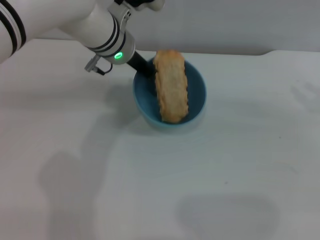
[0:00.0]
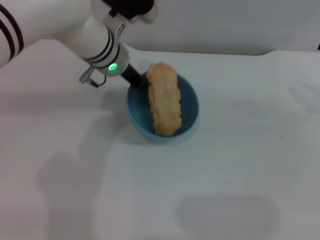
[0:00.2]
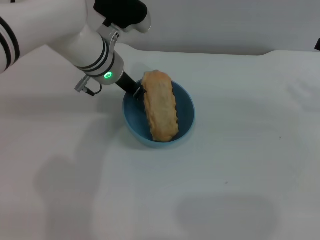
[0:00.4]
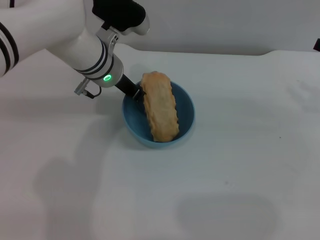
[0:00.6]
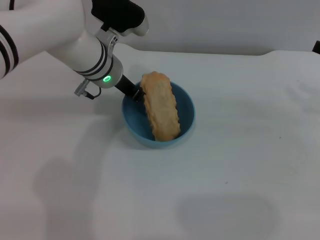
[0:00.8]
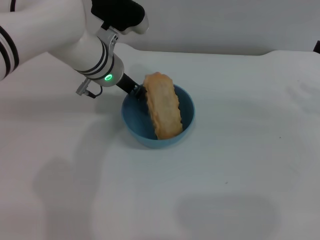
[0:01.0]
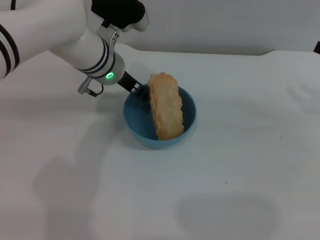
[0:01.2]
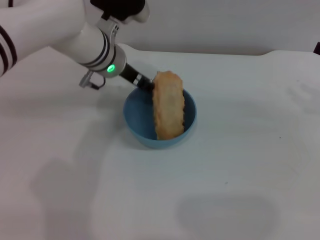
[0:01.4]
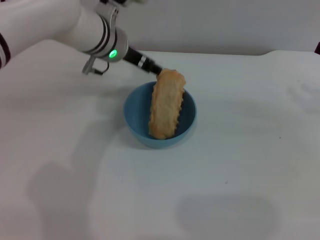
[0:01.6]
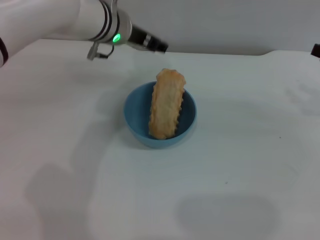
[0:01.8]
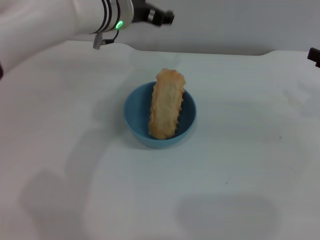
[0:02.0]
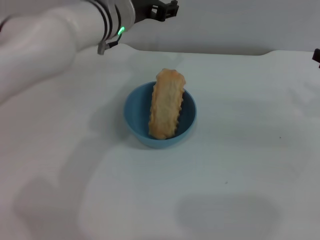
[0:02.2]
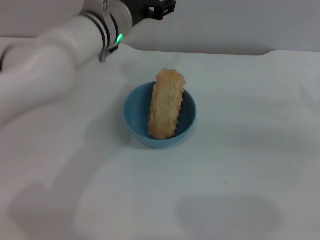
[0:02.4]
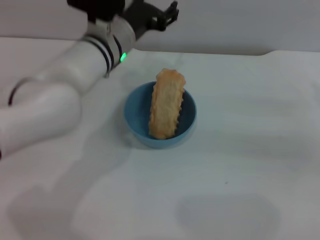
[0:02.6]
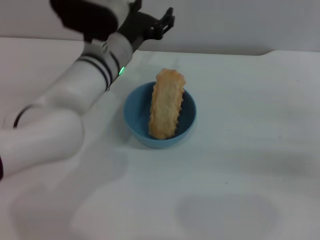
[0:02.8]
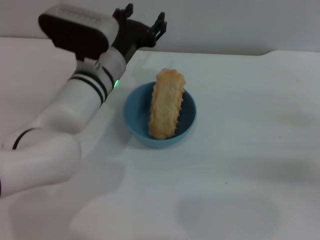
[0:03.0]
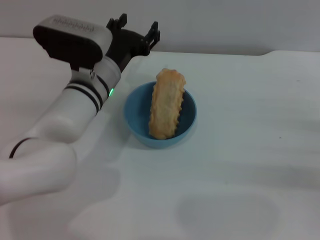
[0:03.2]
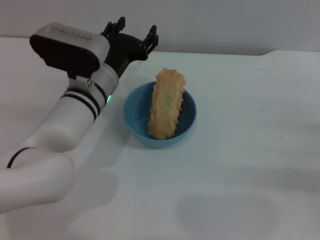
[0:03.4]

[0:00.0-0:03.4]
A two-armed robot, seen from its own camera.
Task of the whole recording: put the bread into the blue bowl and pour it out repeatedly.
Step, 0:00.0 to 0:01.6: Place the bowl on the table.
0:00.0 to 0:01.6: The left gripper opens.
0:01.6 to 0:03.4: The left gripper travels backward and downward by some 10 cm. Meanwhile the right gripper is displaced downward and backward by some 10 cm.

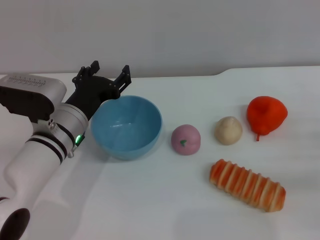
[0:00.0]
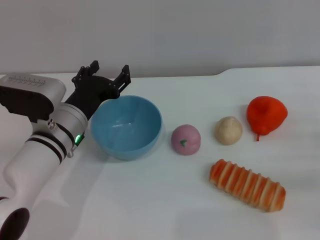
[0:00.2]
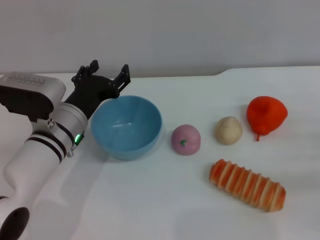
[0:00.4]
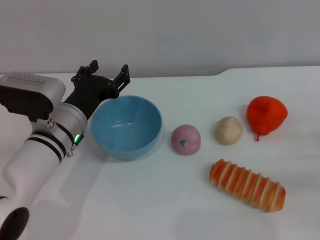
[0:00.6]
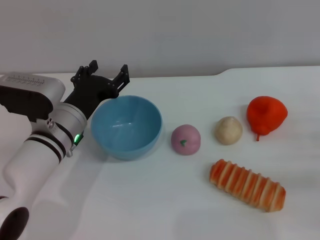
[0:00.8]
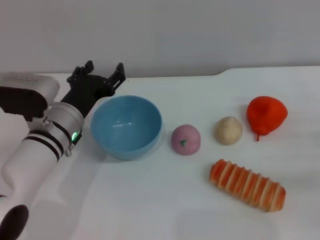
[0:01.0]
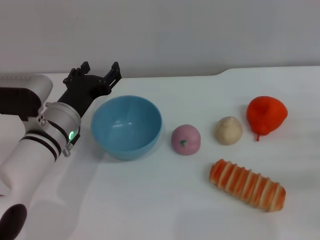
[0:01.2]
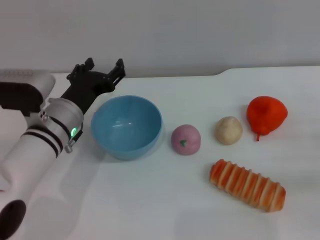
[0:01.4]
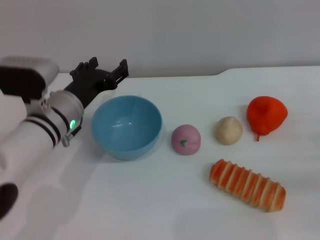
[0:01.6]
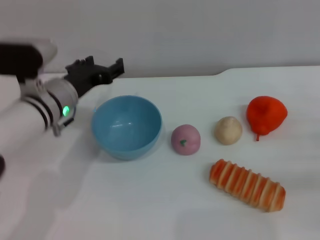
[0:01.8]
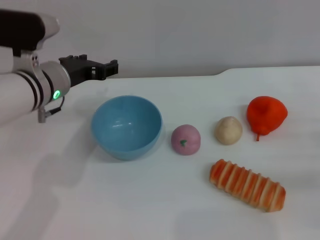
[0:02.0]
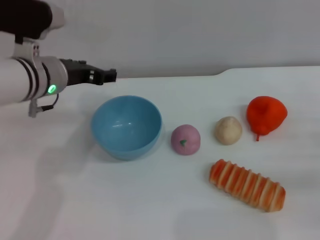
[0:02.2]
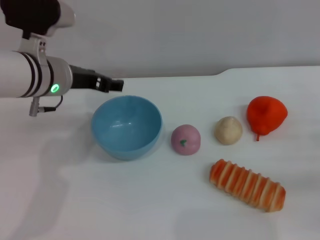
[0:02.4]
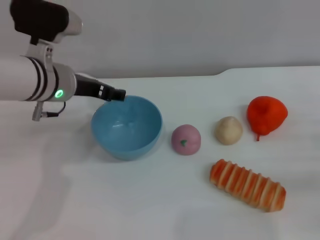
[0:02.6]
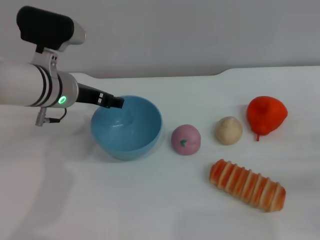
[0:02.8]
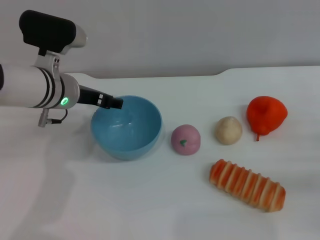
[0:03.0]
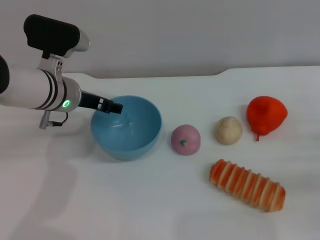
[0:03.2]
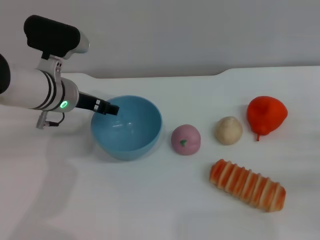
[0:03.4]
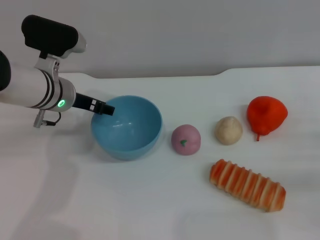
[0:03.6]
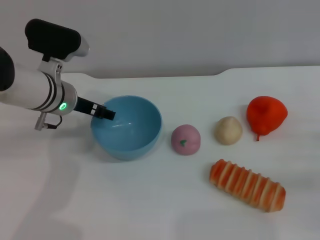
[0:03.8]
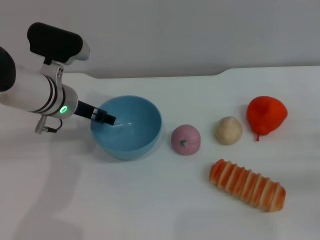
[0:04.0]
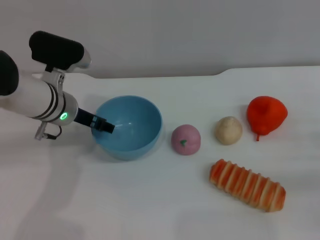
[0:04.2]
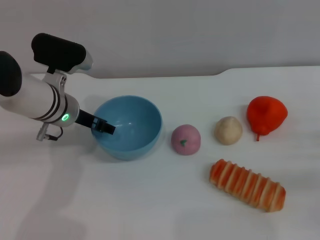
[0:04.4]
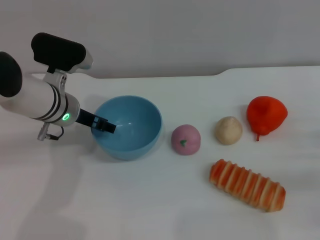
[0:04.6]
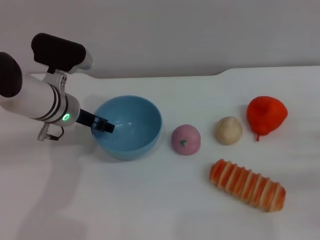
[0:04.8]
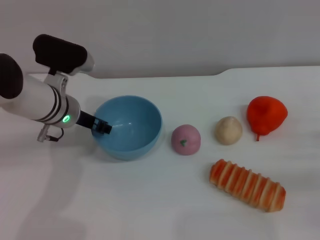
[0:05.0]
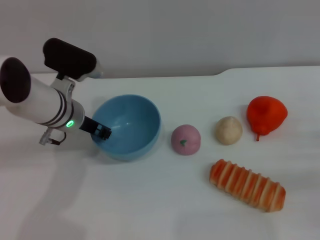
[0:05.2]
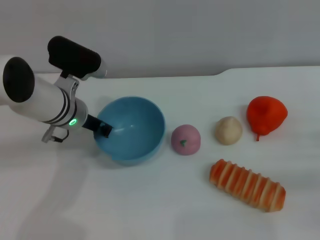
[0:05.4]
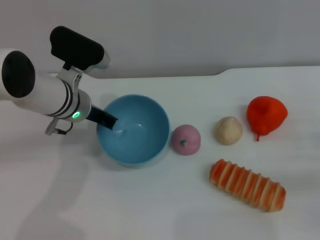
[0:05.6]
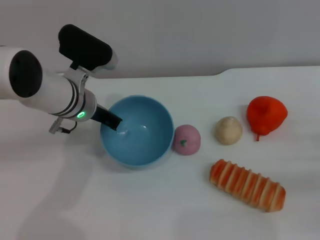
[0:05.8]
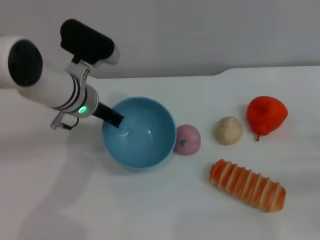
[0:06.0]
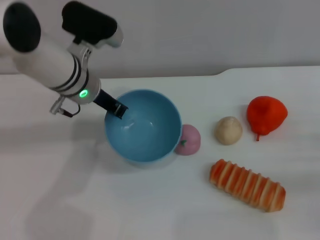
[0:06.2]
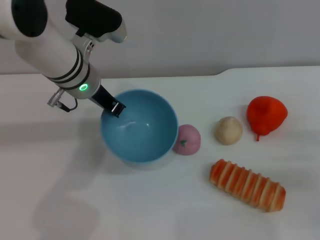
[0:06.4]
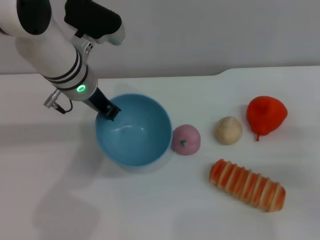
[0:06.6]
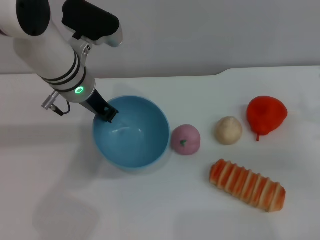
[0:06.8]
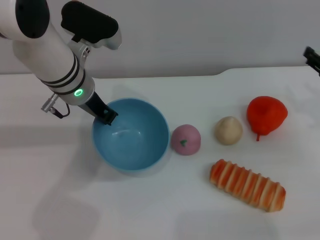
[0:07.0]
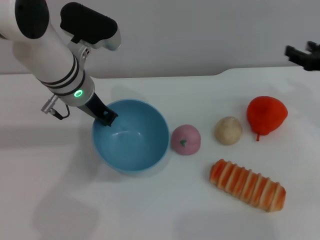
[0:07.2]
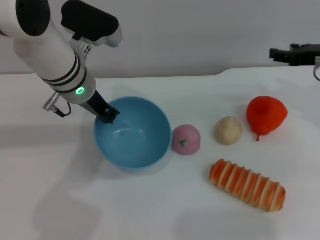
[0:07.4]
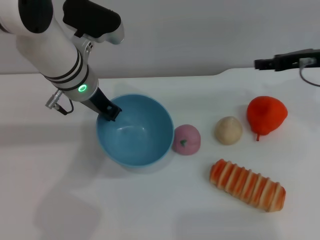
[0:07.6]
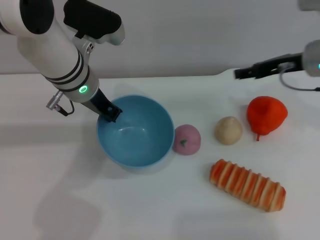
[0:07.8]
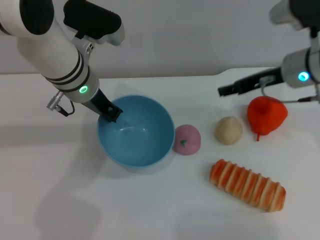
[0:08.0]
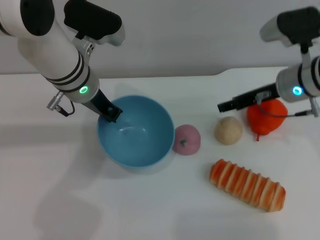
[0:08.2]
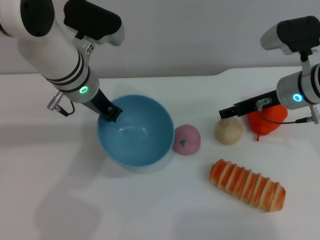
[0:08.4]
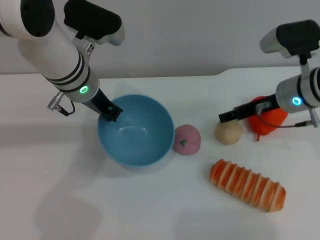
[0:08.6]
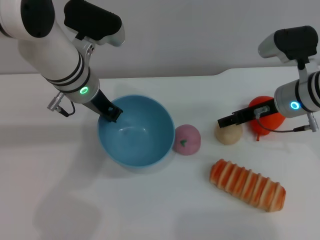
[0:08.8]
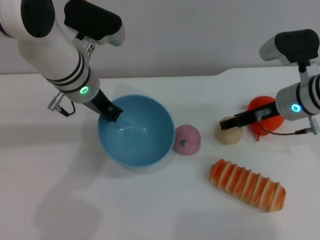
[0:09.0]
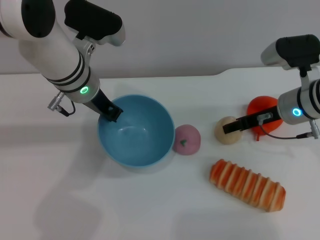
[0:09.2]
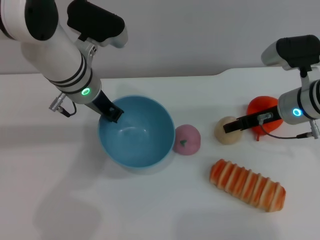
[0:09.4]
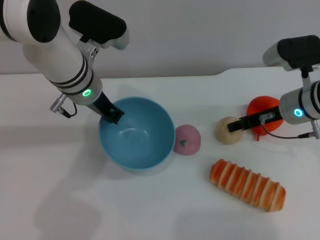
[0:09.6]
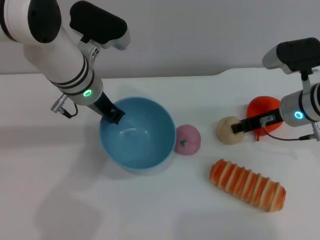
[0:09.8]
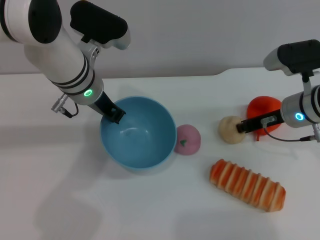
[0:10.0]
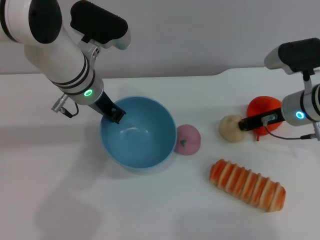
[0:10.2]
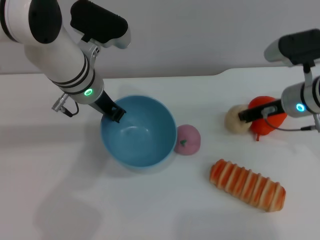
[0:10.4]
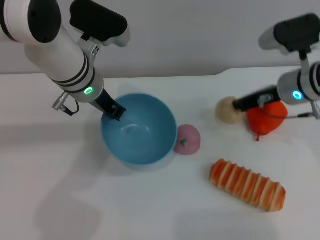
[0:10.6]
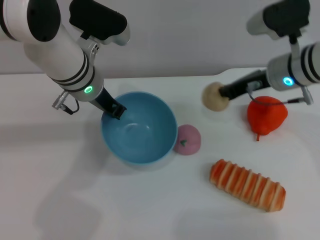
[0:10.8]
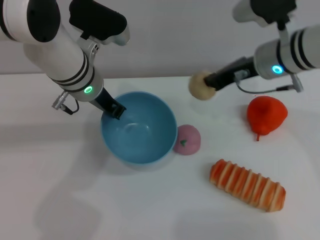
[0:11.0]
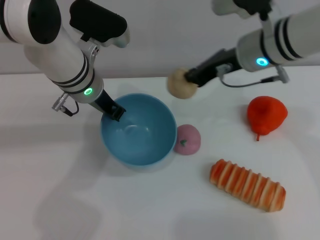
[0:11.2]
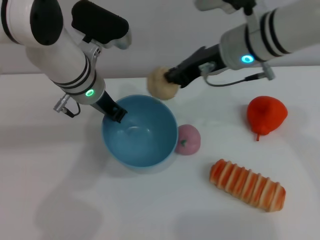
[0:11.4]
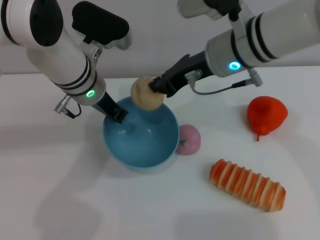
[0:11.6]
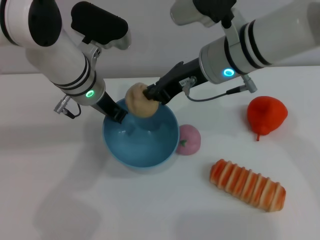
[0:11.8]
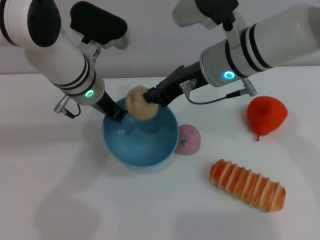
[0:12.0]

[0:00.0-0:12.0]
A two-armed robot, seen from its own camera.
Task of the whole recording: put the egg yolk pastry into the blue bowl and pour it out repeatedly.
Step, 0:00.0 to 0:06.2: Pick up the bowl with the left gripper.
Step, 0:06.4 to 0:10.6: Pick up the egg yolk pastry with the right gripper.
0:00.0 to 0:01.6: The grippers make only small movements.
0:01.6 to 0:03.0: The left gripper shifts by approximately 5 cm.
0:03.0 to 0:04.4: There are only small adjustments of the grippers.
0:04.4 to 0:06.0: The left gripper closes its fingers.
0:06.0 to 0:07.6: The right gripper heads forward, upward and to the left, covering some 20 cm.
0:07.6 to 0:09.0: The right gripper goes some 10 cm to the left and downward.
0:09.0 to 0:10.4: The right gripper closes.
0:10.4 to 0:12.0: The right gripper travels to the left and upward by some 15 cm.

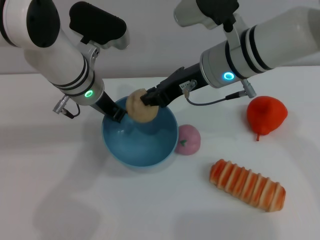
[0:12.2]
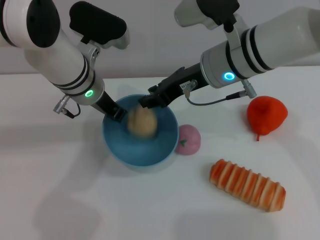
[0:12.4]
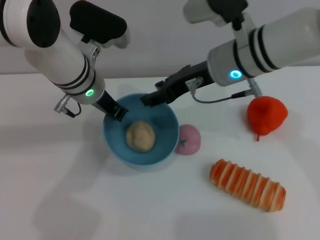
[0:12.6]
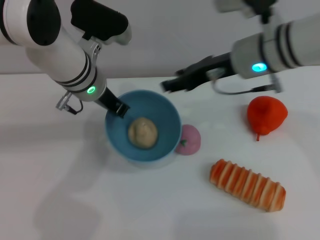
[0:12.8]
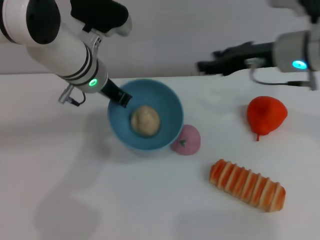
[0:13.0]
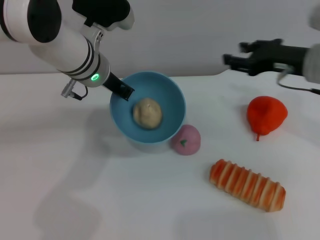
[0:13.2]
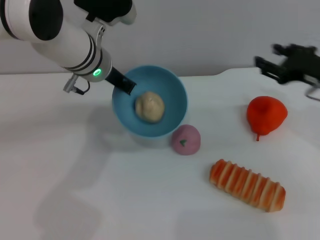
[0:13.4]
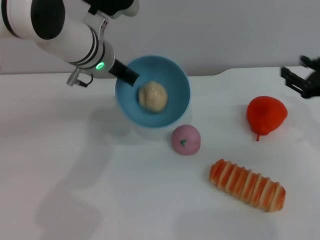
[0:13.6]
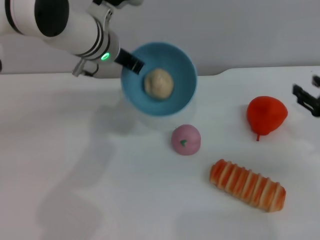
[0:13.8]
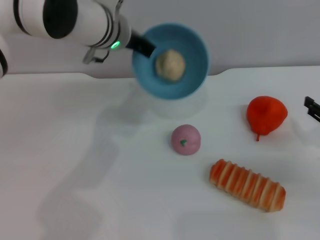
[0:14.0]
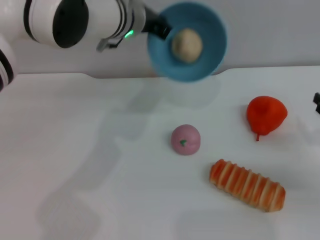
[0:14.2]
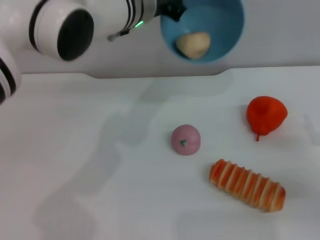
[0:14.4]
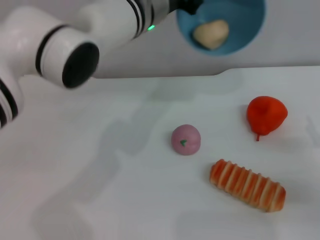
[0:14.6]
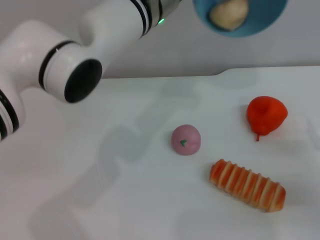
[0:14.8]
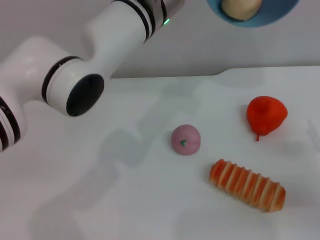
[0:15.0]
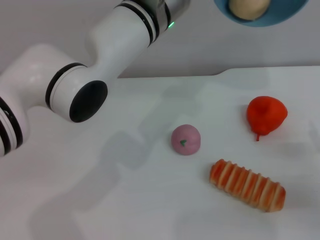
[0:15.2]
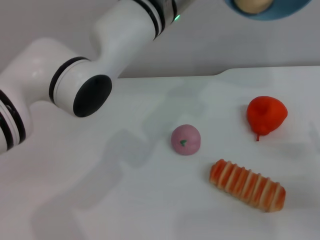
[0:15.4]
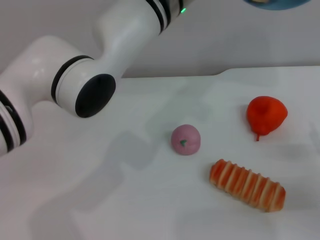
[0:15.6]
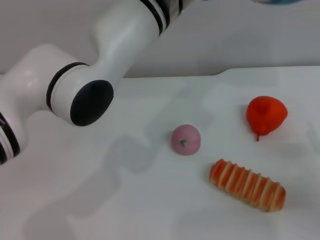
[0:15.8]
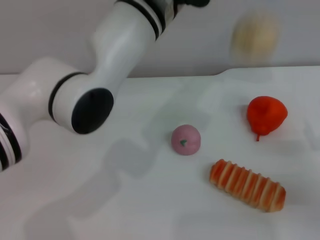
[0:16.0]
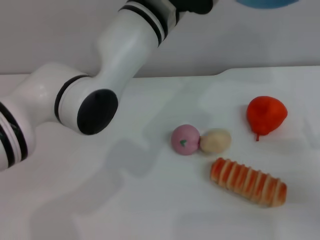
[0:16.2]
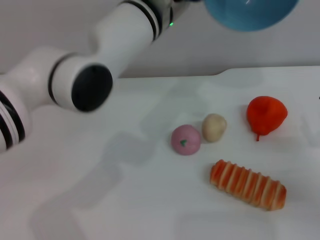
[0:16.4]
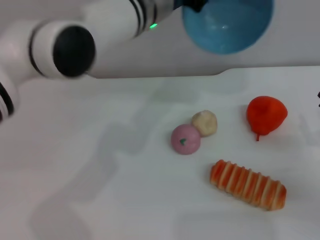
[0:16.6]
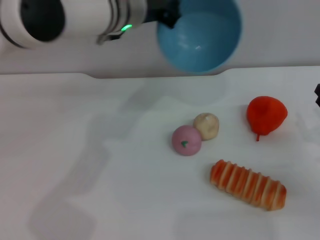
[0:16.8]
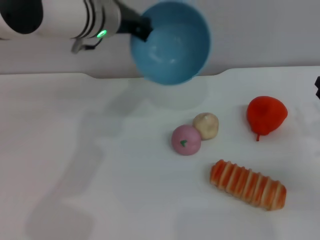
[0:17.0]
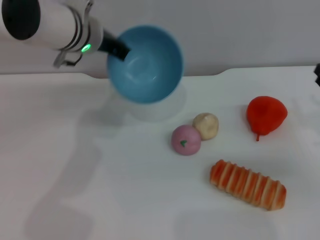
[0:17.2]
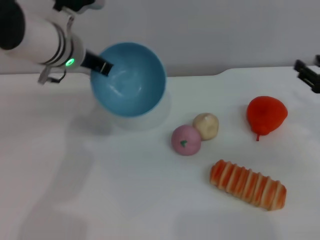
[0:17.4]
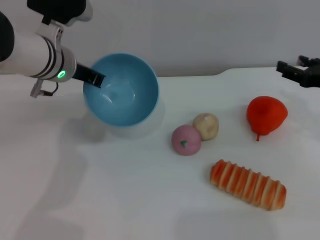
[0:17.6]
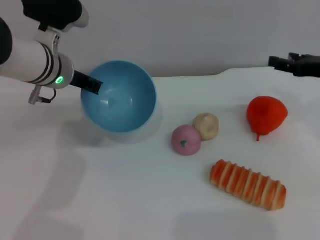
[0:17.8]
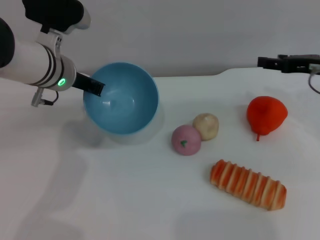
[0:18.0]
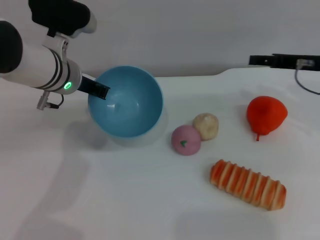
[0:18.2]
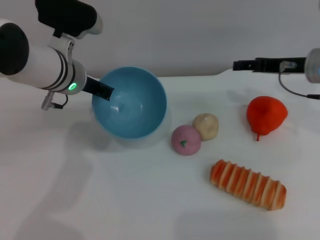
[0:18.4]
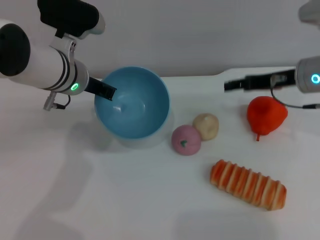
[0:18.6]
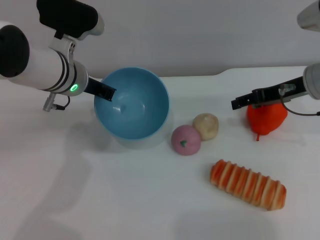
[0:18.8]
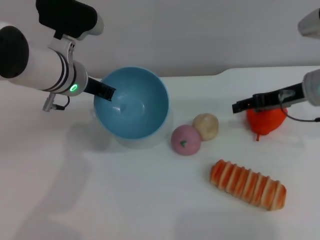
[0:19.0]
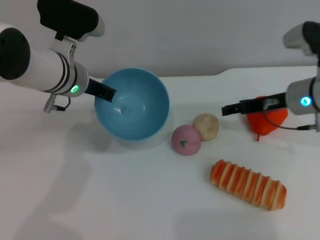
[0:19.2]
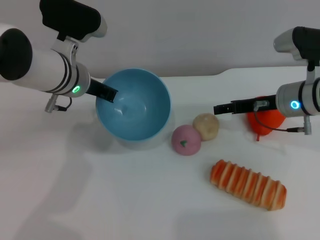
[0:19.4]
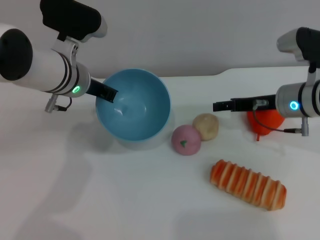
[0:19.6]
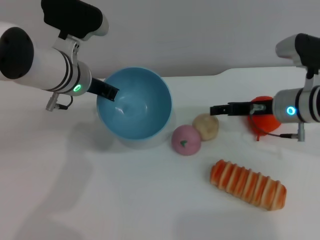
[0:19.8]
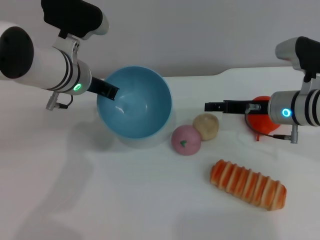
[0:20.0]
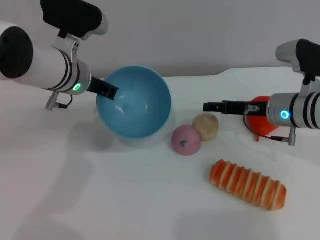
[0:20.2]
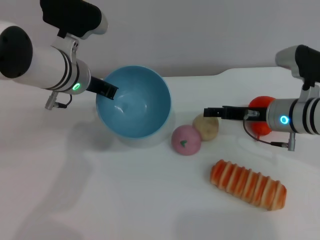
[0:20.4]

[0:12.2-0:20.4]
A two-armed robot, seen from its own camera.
Task of the whole recording: put the egg yolk pastry into the blue bowl and pour it out repeatedly.
Step, 0:13.0 to 0:17.4: Pour the egg yolk pastry out of bowl.
0:12.2 to 0:13.8: The right gripper moves to the right and downward, roughly 25 cm, and opens. Meanwhile the left gripper ends up roughly 5 cm from where it was.
0:13.8 to 0:15.4: The right gripper is displaced backward and downward by approximately 10 cm, while the left gripper goes roughly 10 cm to the right.
0:15.4 to 0:17.2: The right gripper goes about 5 cm forward. The left gripper travels to the left by approximately 10 cm.
0:17.2 to 0:18.8: The right gripper heads forward, to the left and upward, covering roughly 15 cm; the left gripper ends up about 5 cm from where it was.
0:18.8 to 0:20.4: The right gripper heads downward, covering approximately 10 cm.
